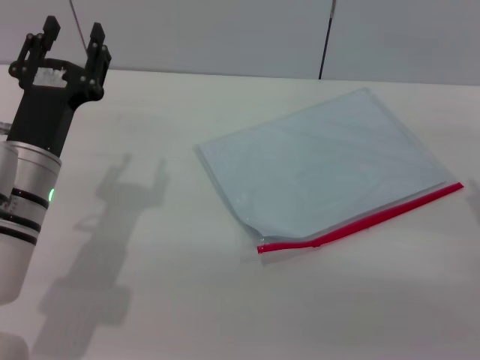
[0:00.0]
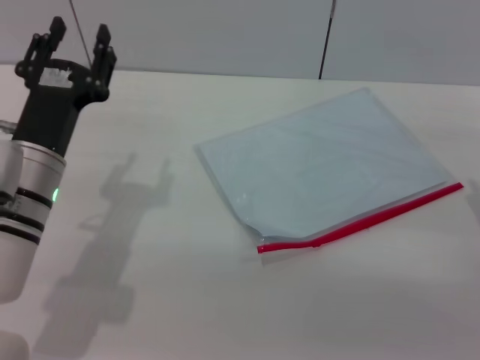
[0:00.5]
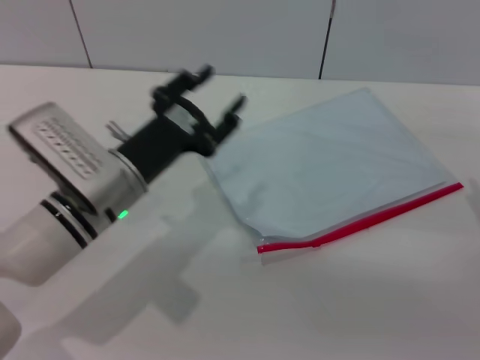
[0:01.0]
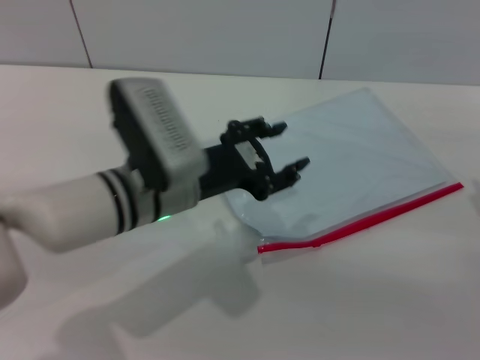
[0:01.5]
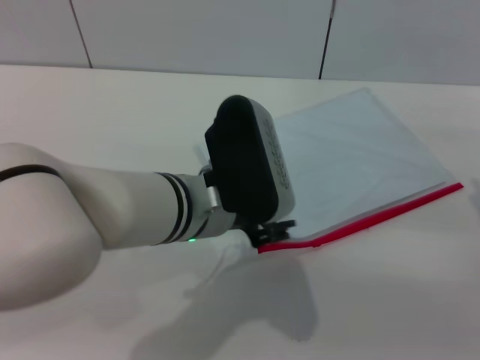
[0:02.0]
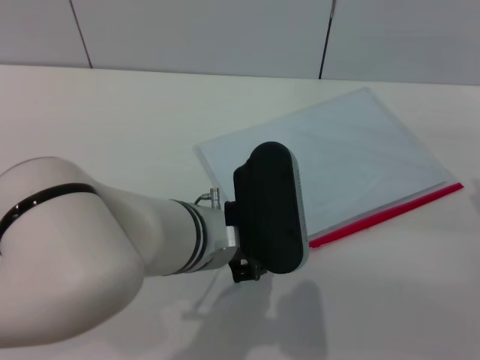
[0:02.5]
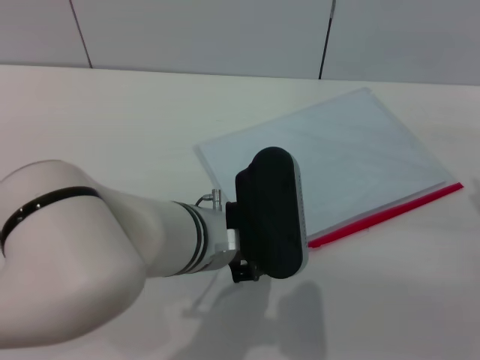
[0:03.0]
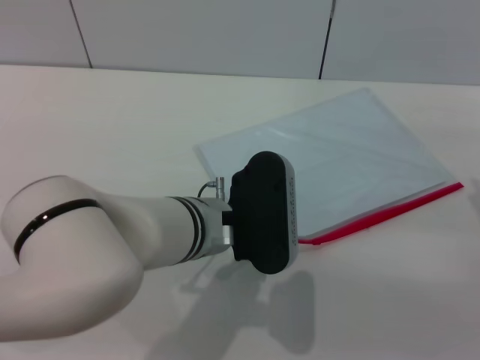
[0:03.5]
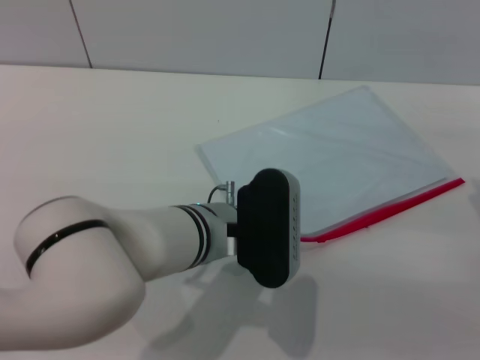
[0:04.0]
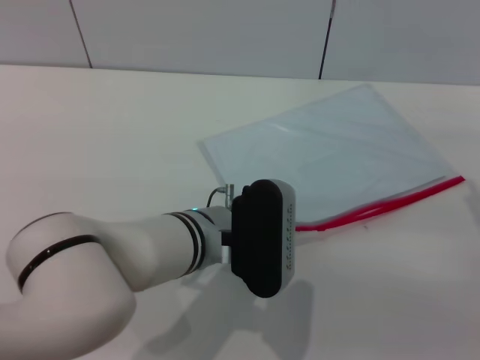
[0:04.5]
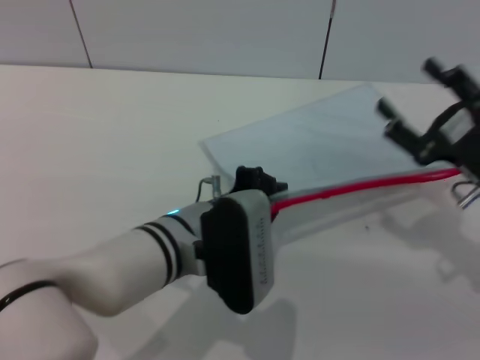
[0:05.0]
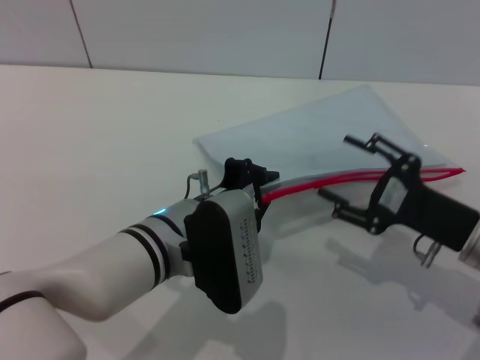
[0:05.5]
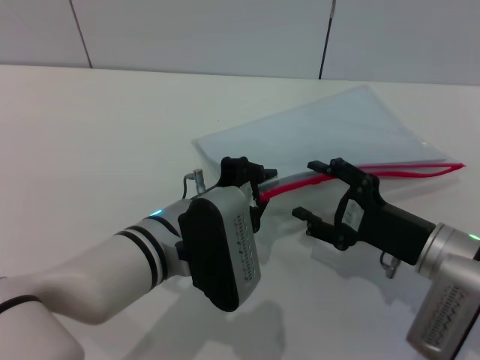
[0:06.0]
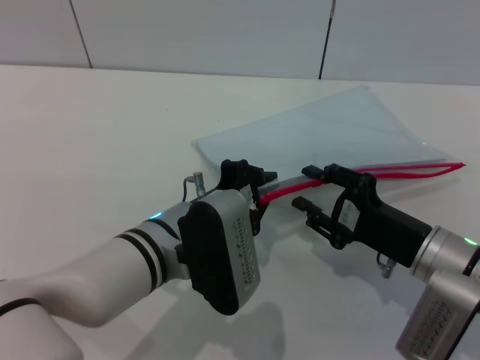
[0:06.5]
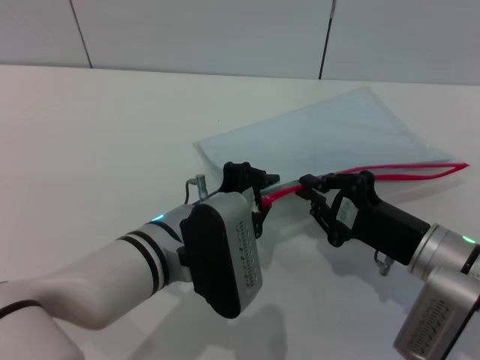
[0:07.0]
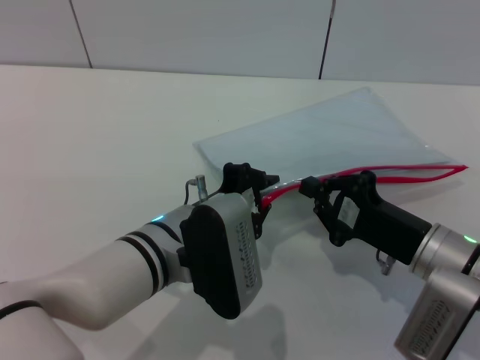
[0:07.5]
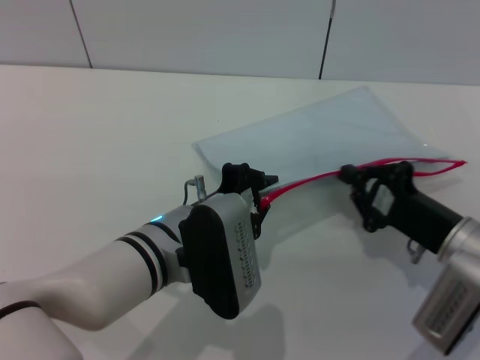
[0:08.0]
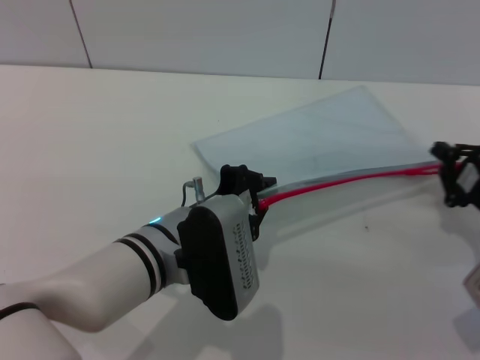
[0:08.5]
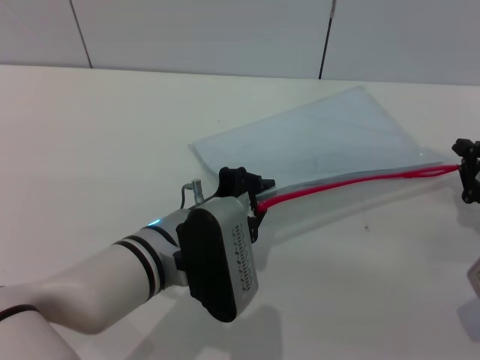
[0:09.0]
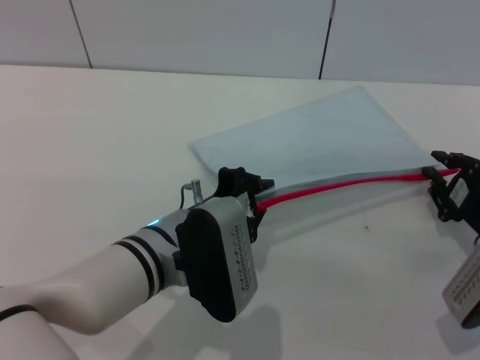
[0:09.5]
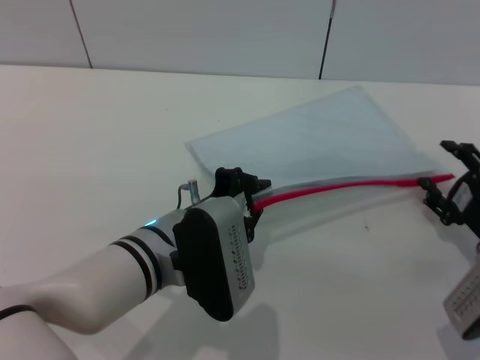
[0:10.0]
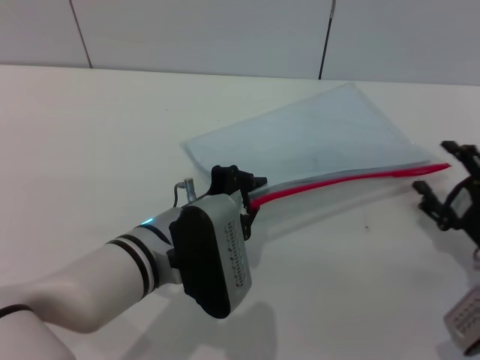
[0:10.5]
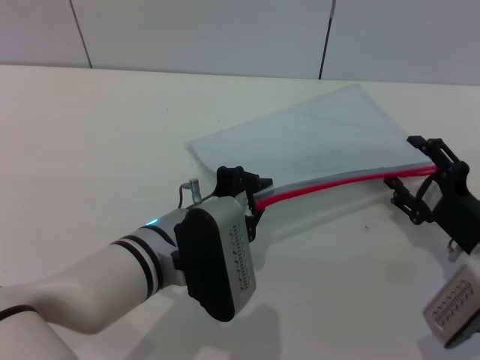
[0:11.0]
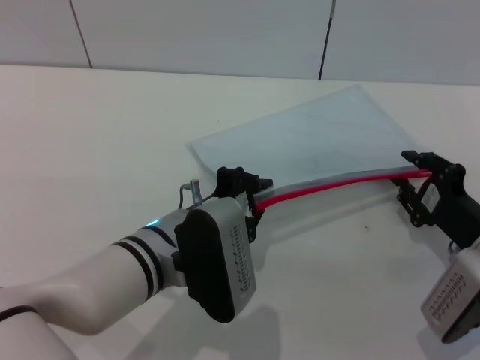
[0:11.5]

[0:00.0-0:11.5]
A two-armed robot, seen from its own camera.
Step, 0:00.0 to 0:05.0: Pick up the transparent plastic bag with the left gripper.
0:00.0 to 0:02.0: The left gripper shifts approximately 15 cm to the right.
0:02.0 to 0:04.0: There are only small adjustments of the grippers.
0:04.0 to 0:06.0: The right gripper is displaced to the left by approximately 10 cm; the left gripper closes up.
0:06.0 to 0:07.5: The right gripper closes up.
0:07.5 to 0:09.5: The right gripper shifts roughly 10 cm to the right.
0:09.5 to 0:11.5: The right gripper opens up.

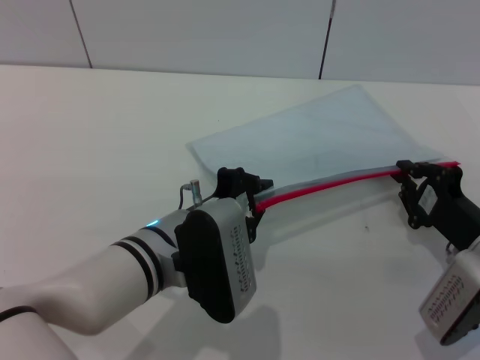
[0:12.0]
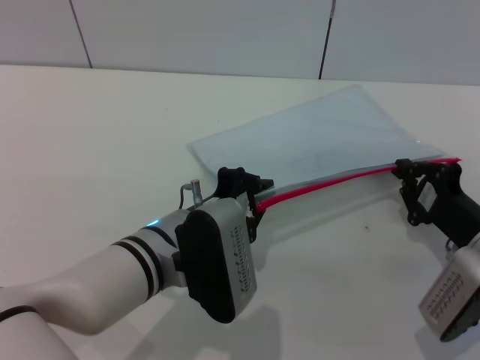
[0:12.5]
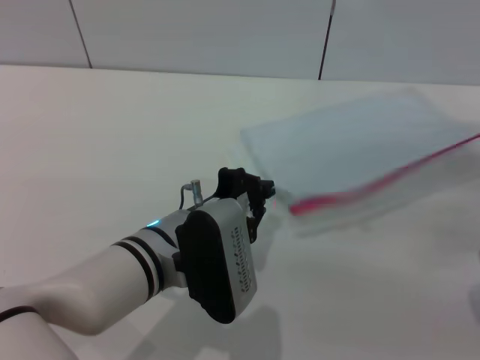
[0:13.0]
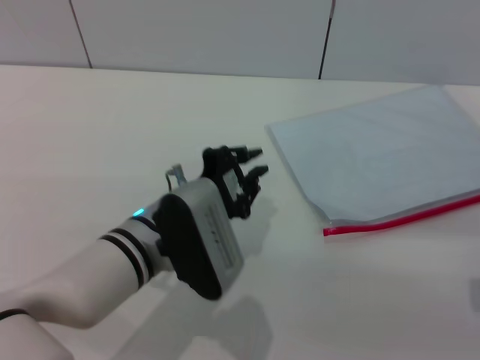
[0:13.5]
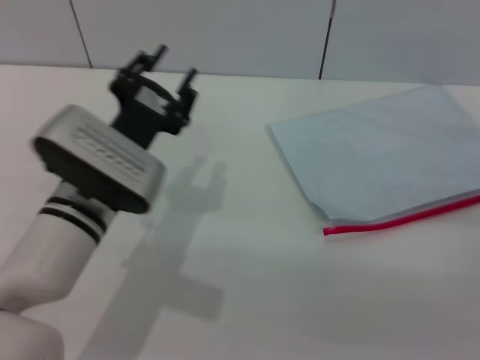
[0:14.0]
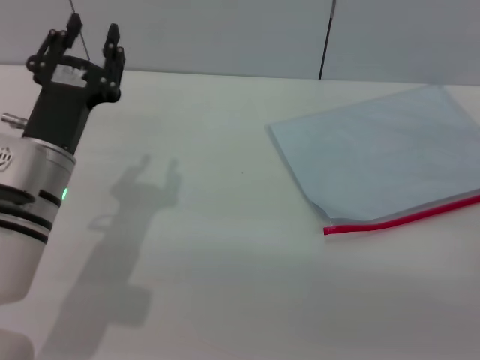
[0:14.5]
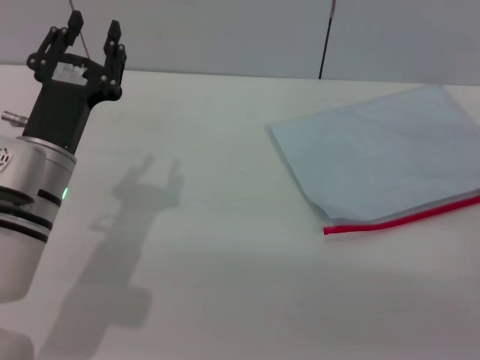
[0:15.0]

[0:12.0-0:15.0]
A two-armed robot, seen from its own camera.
Step, 0:13.5 to 0:14.0: Place the transparent plastic bag.
0:12.0 to 0:13.5: The right gripper is displaced to the right by approximately 5 cm.
0:13.5 to 0:15.0: The left gripper goes approximately 10 cm to the left, and opens its fingers, while the right gripper opens.
